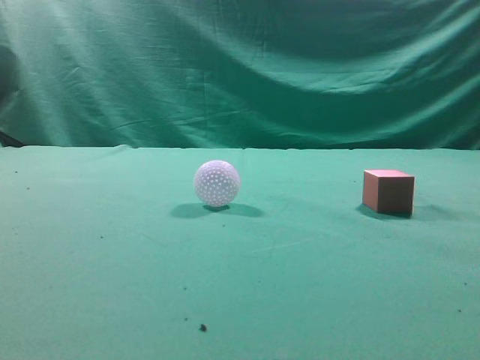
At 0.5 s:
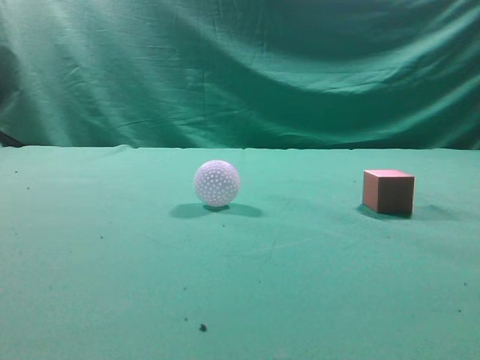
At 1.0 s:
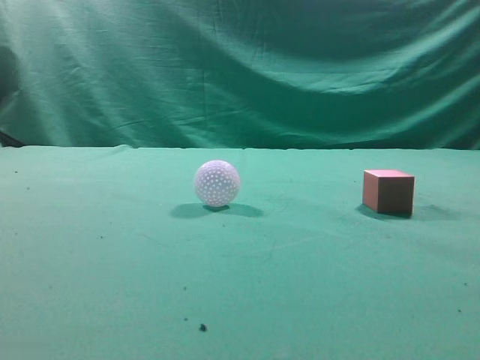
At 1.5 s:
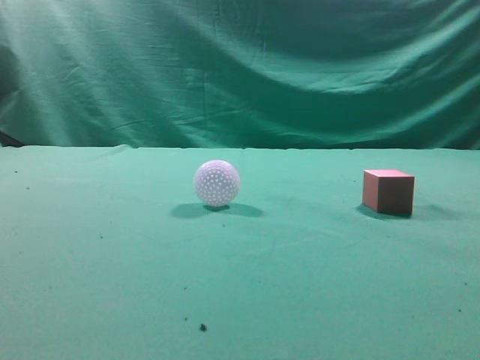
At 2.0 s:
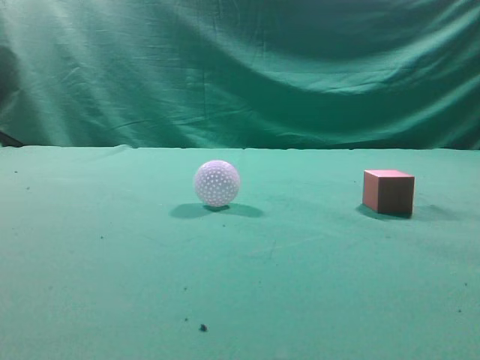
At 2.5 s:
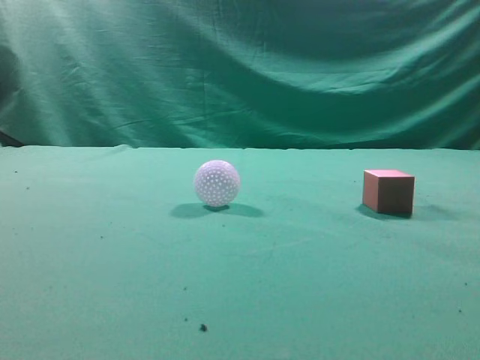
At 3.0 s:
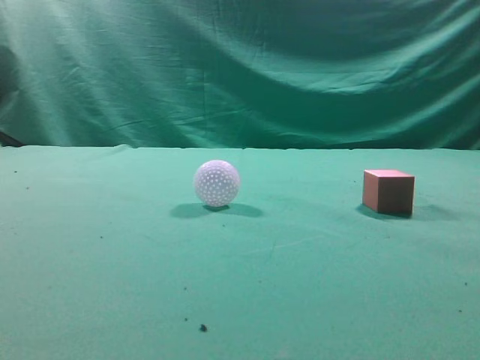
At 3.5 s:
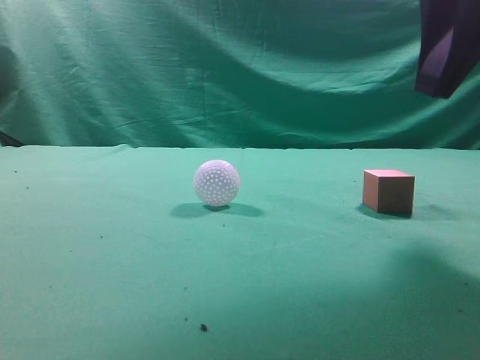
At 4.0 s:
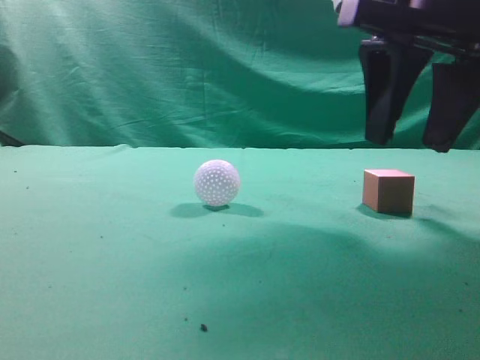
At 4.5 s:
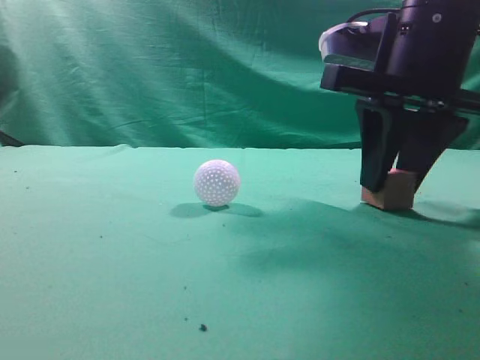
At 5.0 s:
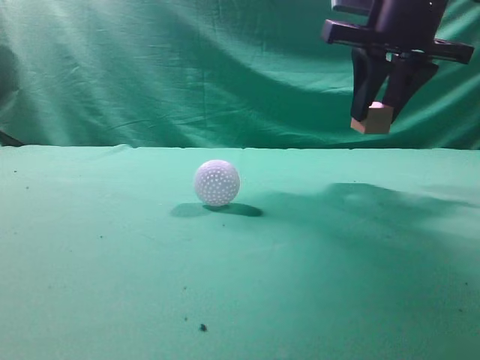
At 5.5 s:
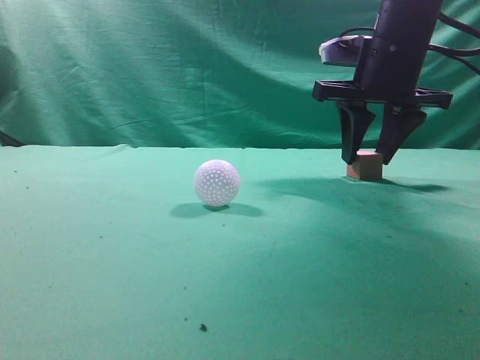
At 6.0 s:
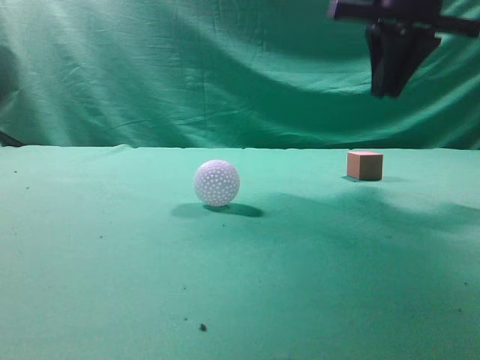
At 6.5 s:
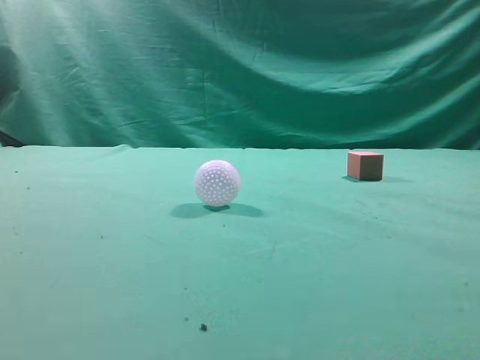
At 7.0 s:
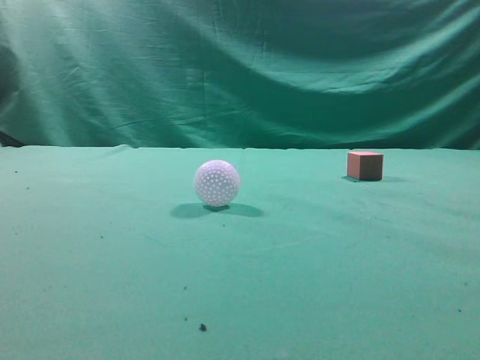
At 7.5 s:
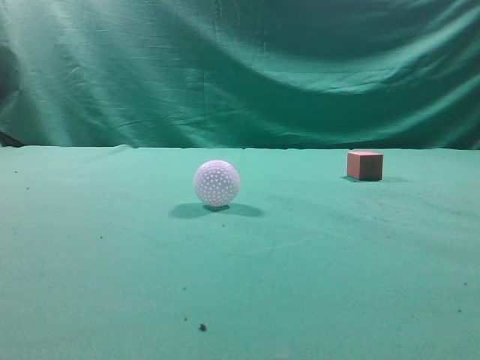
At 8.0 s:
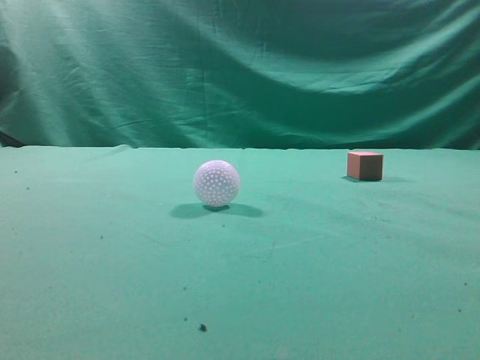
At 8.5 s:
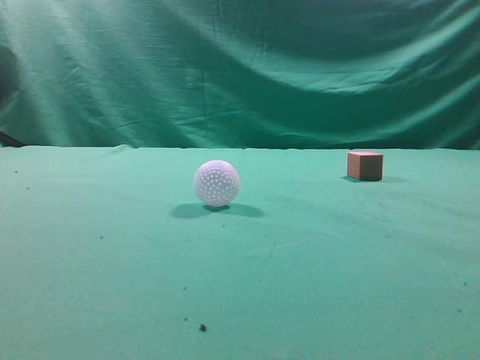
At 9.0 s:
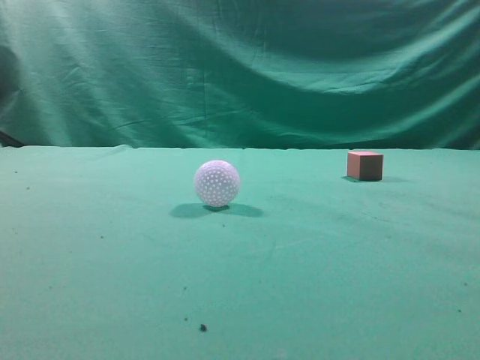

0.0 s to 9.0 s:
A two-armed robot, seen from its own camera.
Task of the whole recording: pick up the cube block and place it in another position on the table.
Step, 0.0 to 4.5 s: Pick up the small cube.
Step, 5.0 to 5.5 s: Place the small cube on the ahead of the table.
2.0 to 4.5 s: The right gripper travels forward, to the left and downward by about 35 cm, and opens.
4.5 to 7.0 s: The right gripper heads backward, upward and to the right, covering about 30 cm, and closes.
